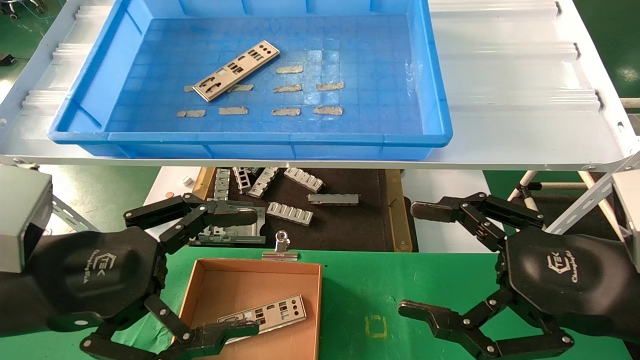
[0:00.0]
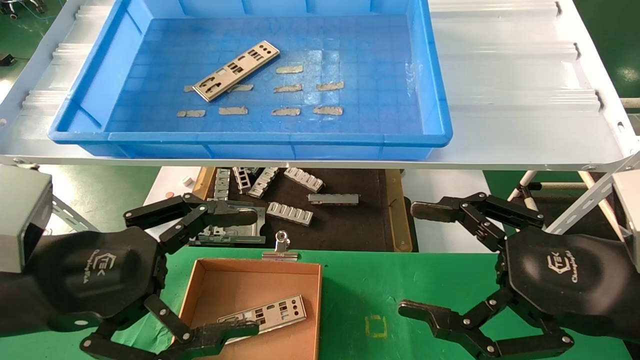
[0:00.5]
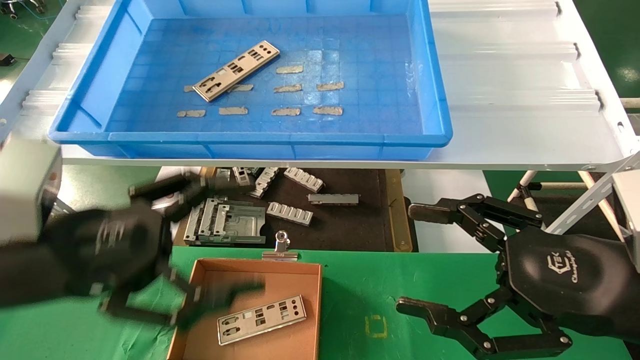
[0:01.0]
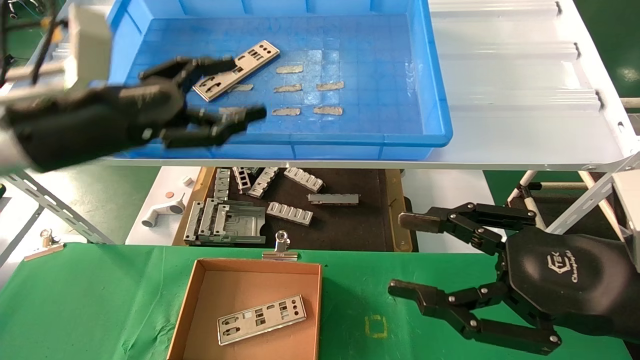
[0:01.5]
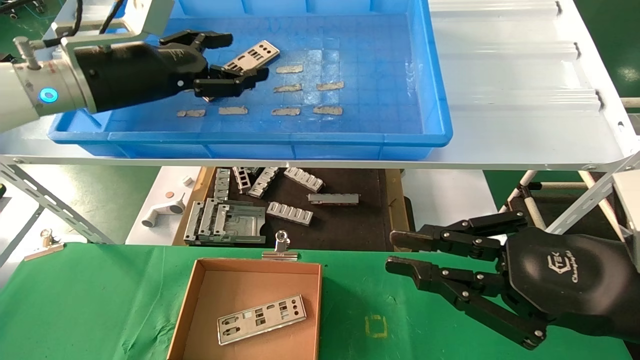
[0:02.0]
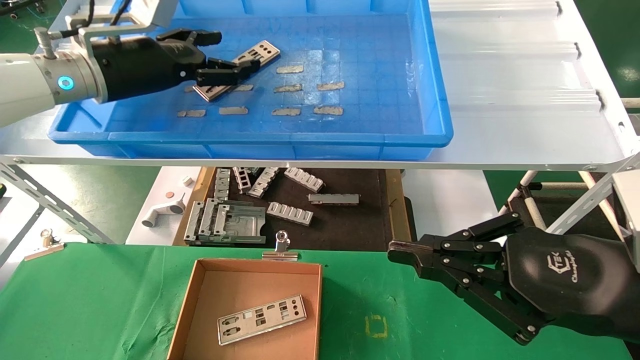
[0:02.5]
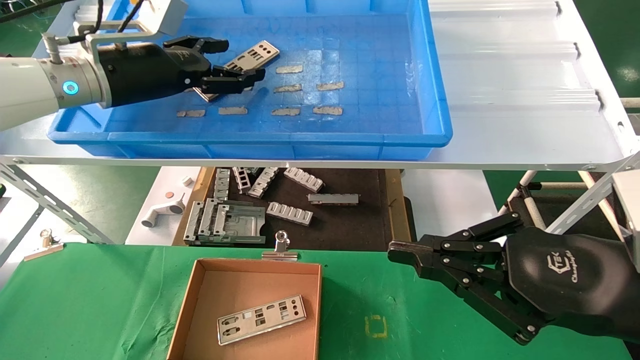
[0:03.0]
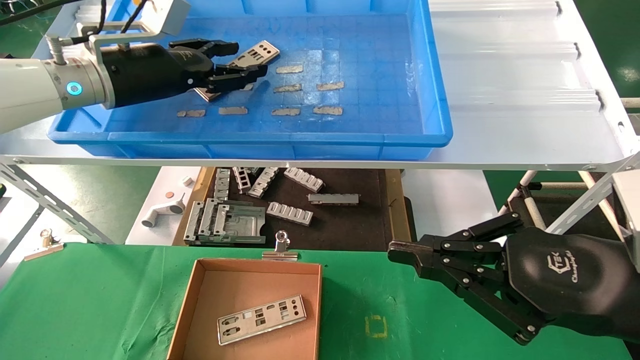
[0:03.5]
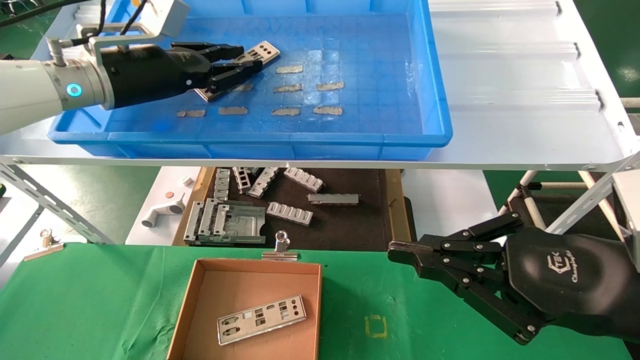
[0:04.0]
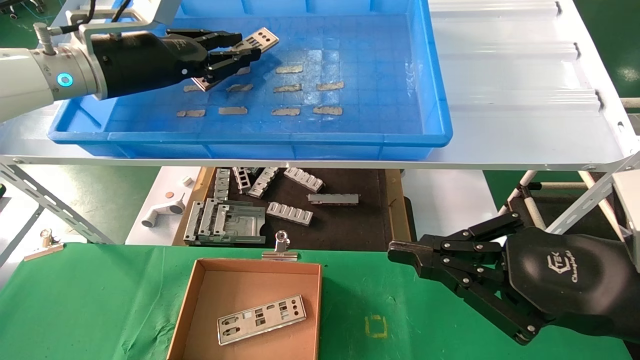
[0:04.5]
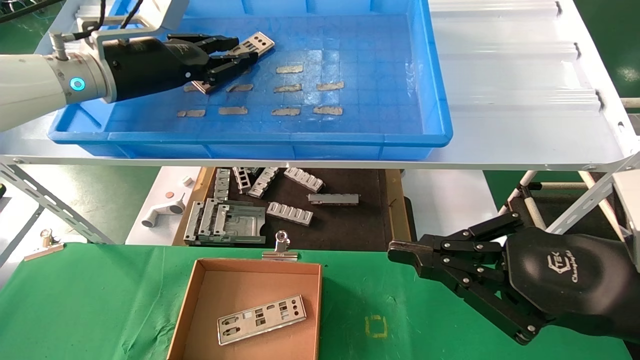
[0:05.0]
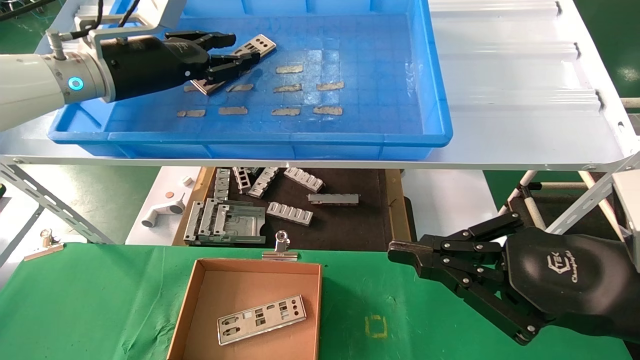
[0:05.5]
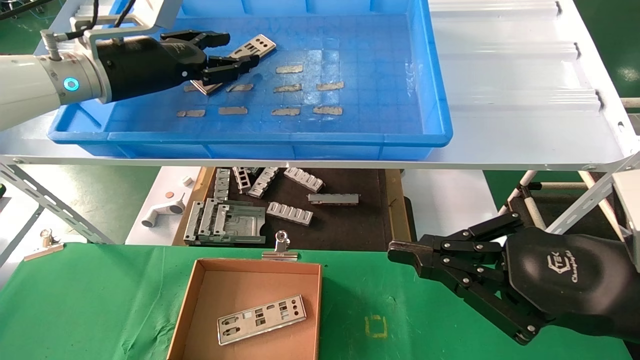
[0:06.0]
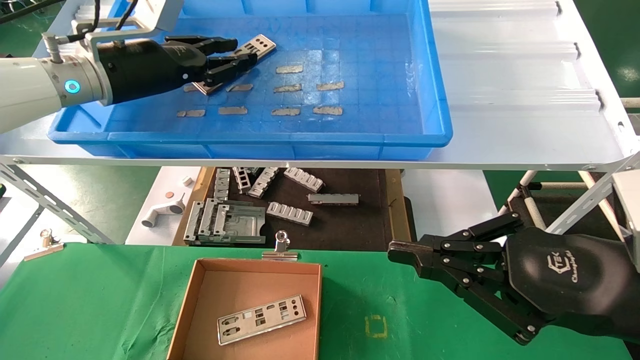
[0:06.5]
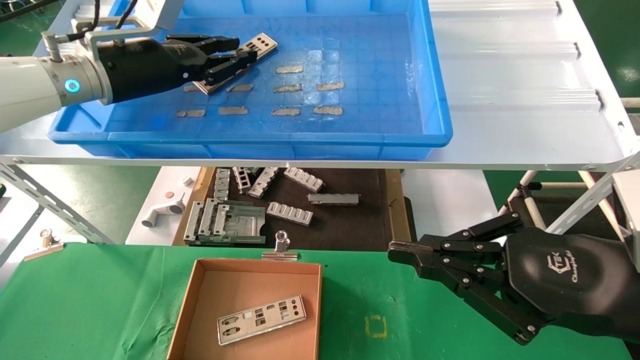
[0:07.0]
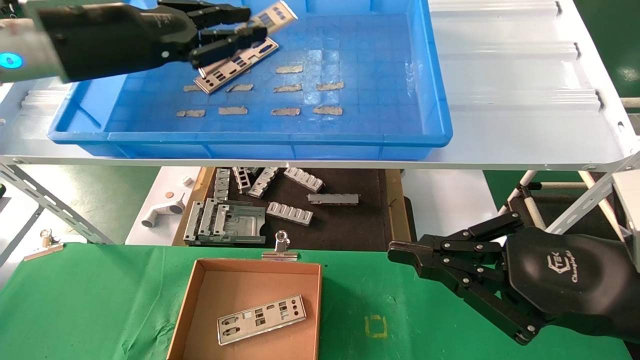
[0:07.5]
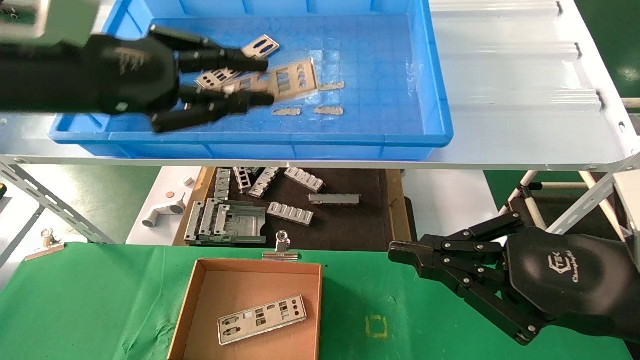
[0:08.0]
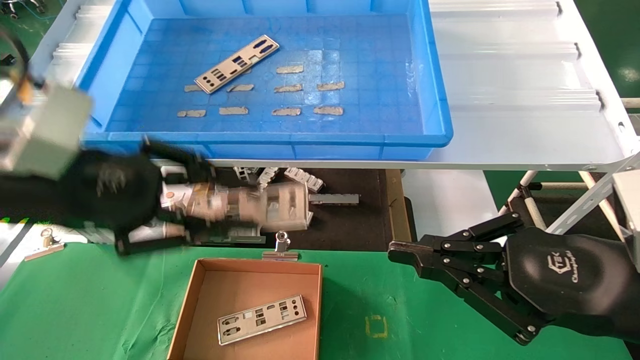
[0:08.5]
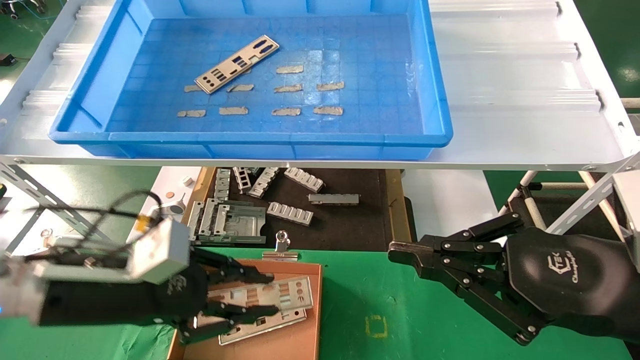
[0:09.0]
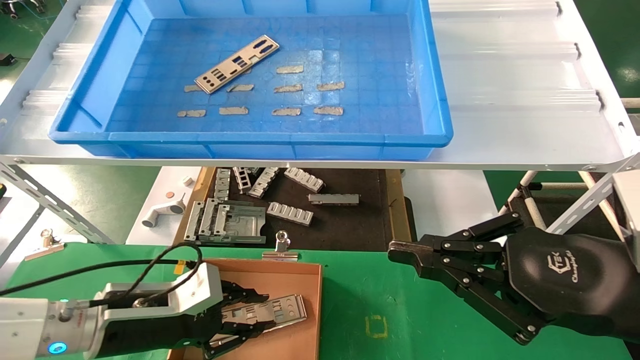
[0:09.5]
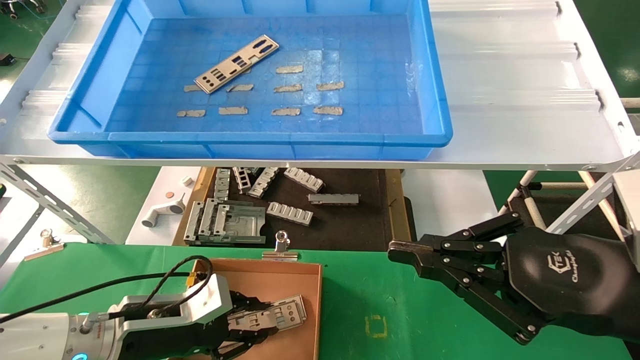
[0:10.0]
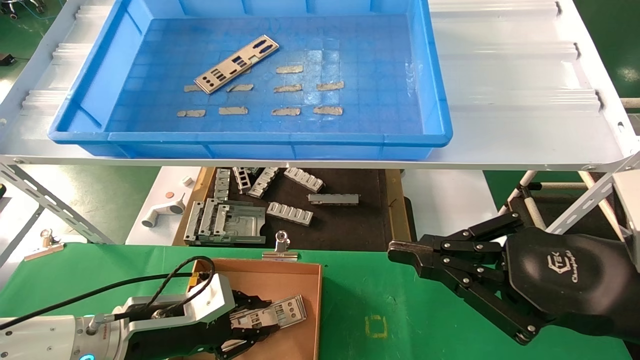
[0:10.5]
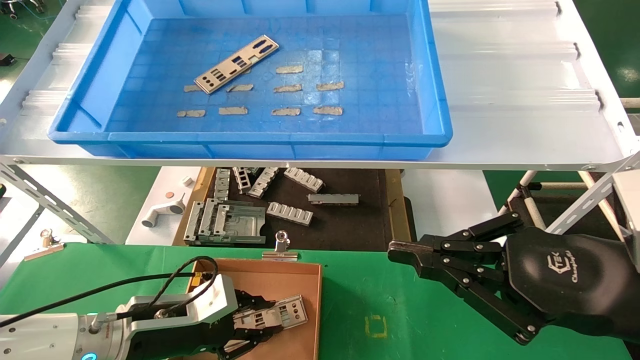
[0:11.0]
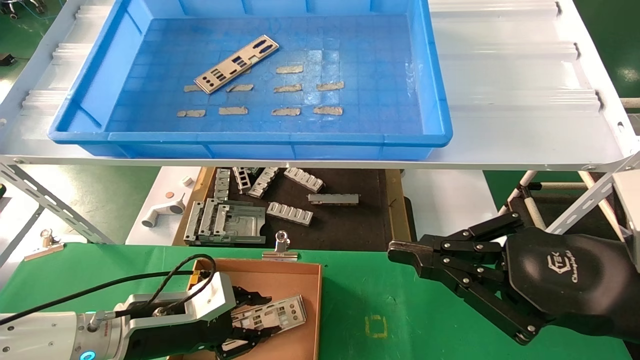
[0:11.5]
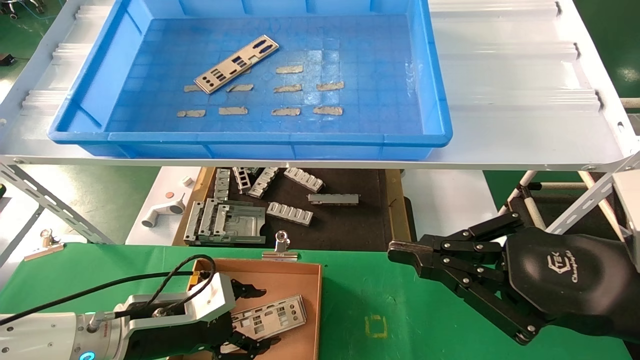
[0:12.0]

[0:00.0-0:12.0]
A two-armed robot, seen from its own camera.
Task of the whole recording: pick up the parts on the tray and put them in the cardboard box.
Step, 0:01.5 to 0:07.0: Pick up the IO bracket from the container box.
Step, 0:07.5 to 0:11.5: Place the IO bracket into the ingredient slot.
0:00.0 to 0:02.0: The left gripper moves forward and upward, some 25 cm. The right gripper closes.
0:02.0 to 0:04.0: The left gripper closes up.
0:04.0 to 0:06.0: Neither gripper changes place.
0:06.0 to 0:08.0: The left gripper shifts about 15 cm backward, and closes.
0:08.0 to 0:10.0: The left gripper goes some 30 cm downward.
0:10.0 to 0:12.0: The left gripper opens up.

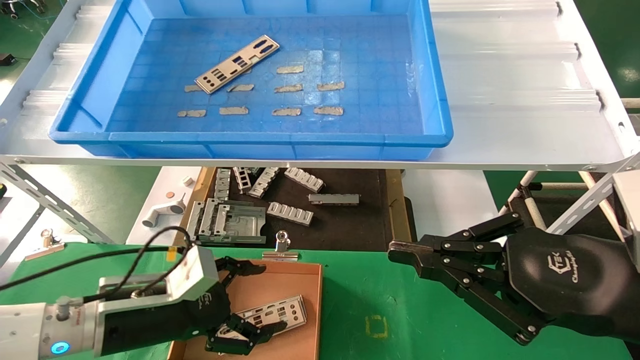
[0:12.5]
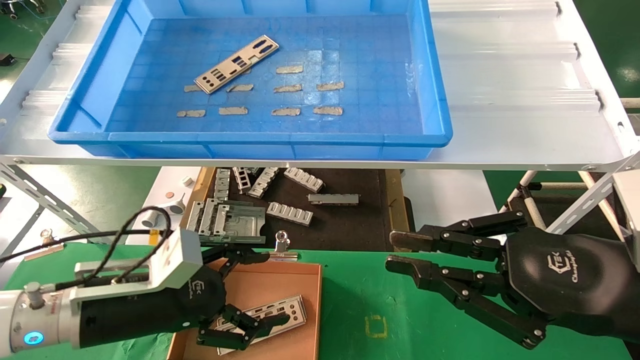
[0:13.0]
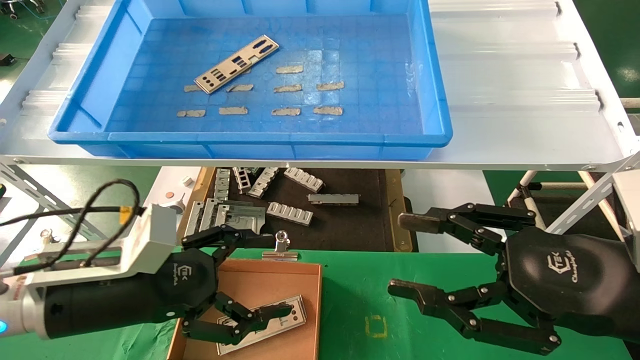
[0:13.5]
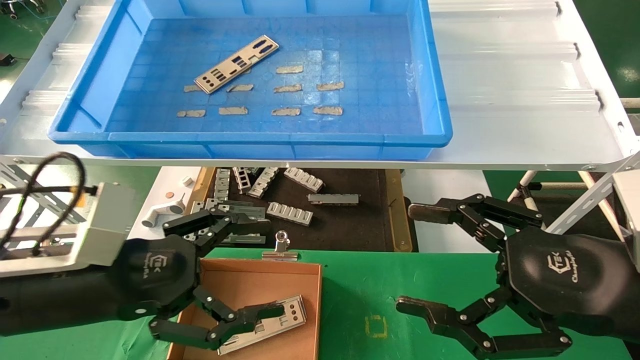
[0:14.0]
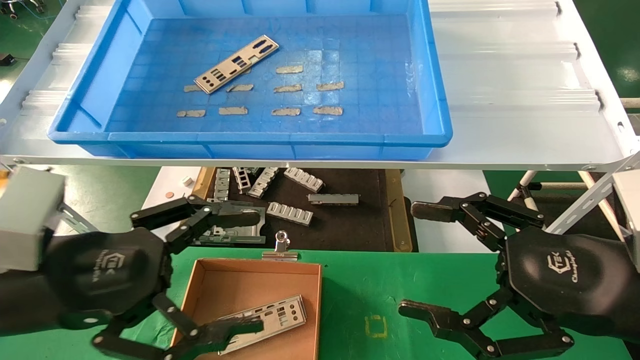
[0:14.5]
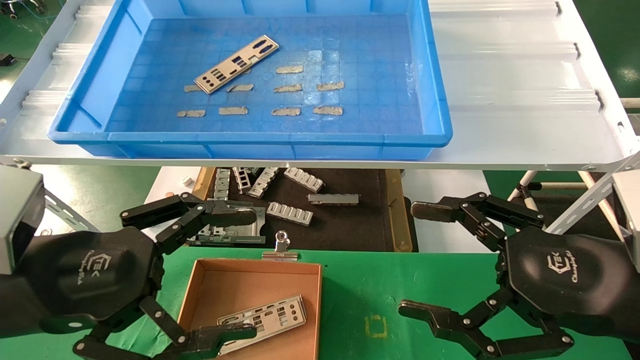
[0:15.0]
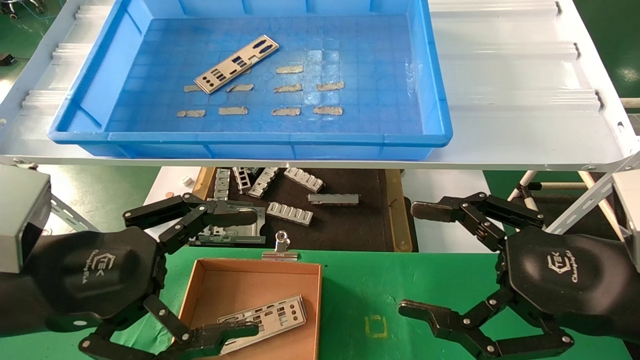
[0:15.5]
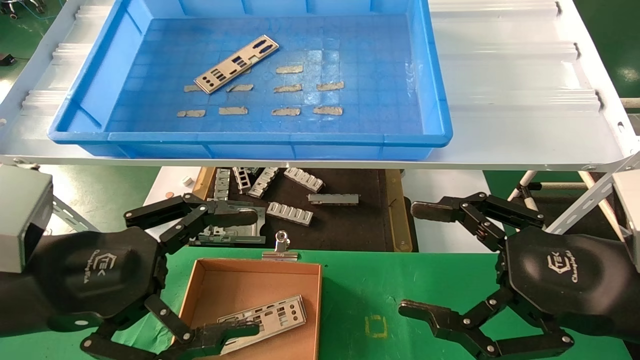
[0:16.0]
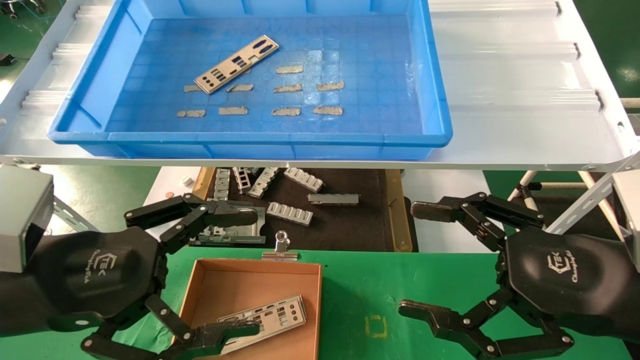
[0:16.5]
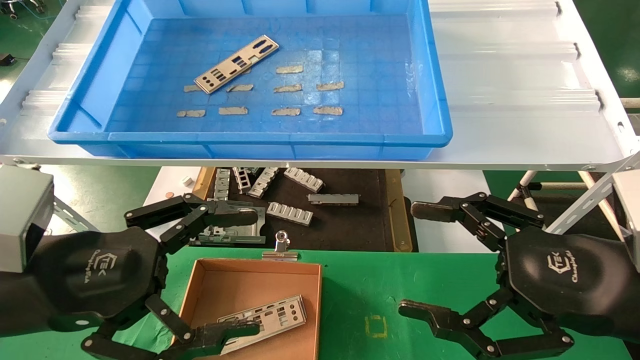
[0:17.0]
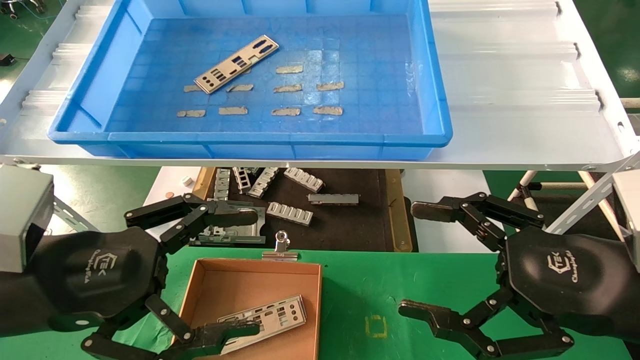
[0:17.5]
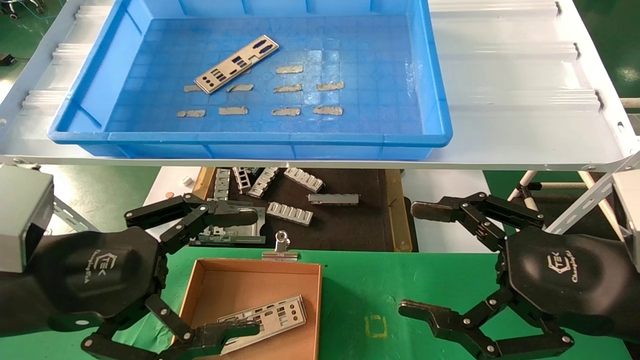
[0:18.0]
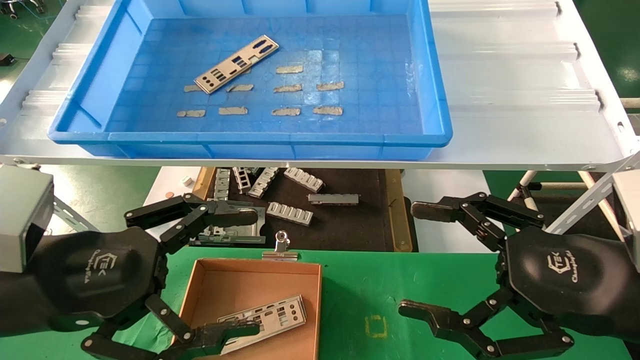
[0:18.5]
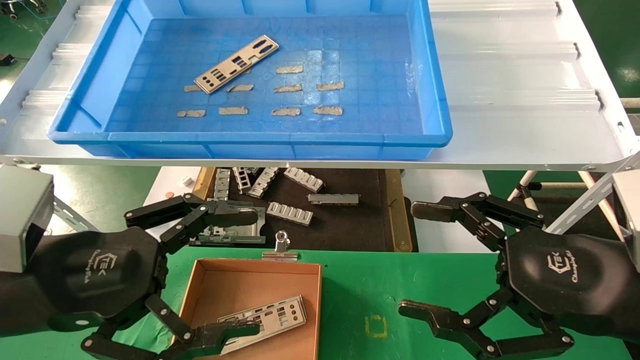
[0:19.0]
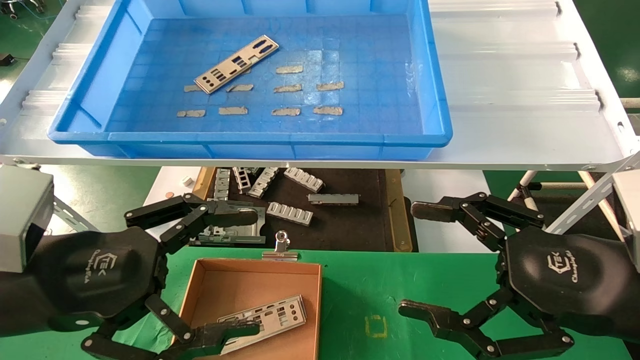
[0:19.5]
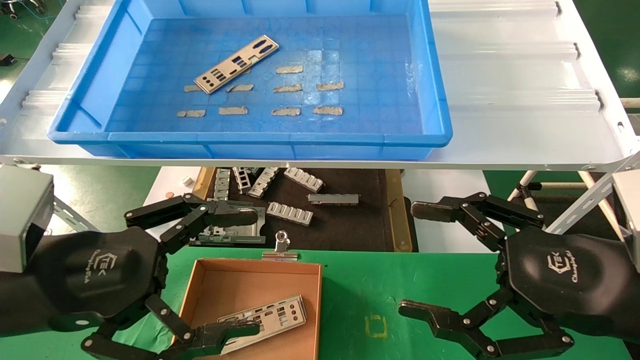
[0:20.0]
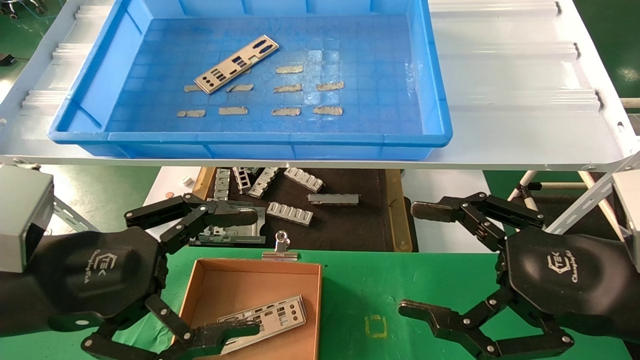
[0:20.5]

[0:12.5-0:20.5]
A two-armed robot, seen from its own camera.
Task of the whole recording: pick up the parts on the tray and put them in the cardboard box.
0:12.5 to 0:14.5: The left gripper heads upward and backward, covering roughly 15 cm; the right gripper opens.
0:14.5 to 0:20.5: Both grippers stay put.
